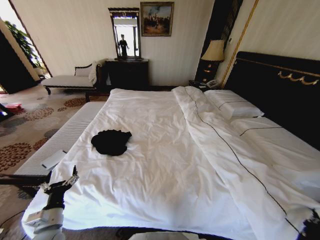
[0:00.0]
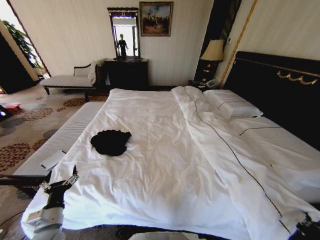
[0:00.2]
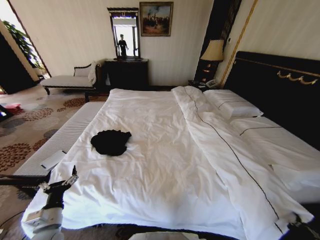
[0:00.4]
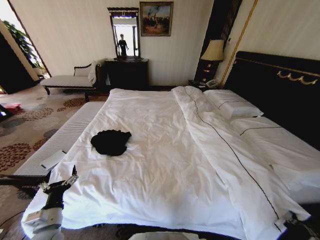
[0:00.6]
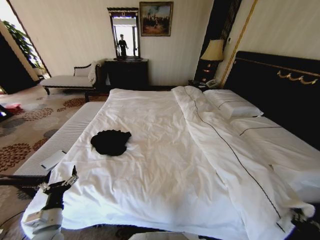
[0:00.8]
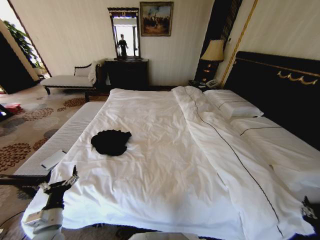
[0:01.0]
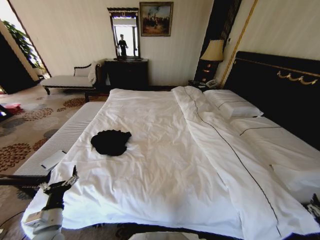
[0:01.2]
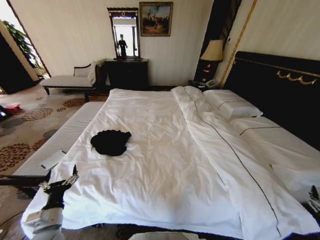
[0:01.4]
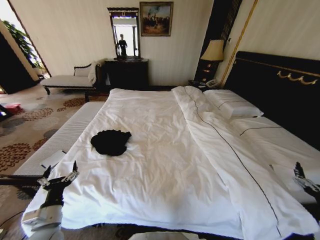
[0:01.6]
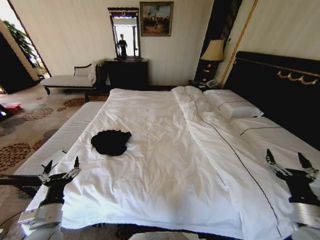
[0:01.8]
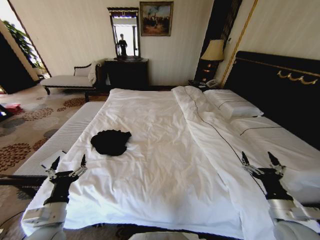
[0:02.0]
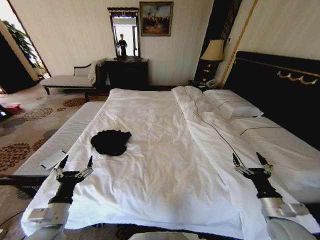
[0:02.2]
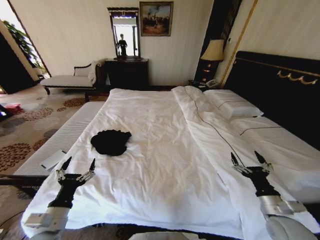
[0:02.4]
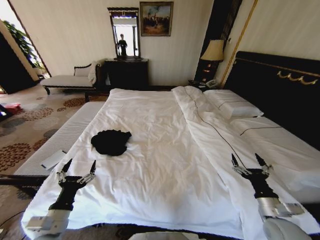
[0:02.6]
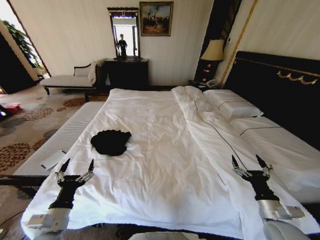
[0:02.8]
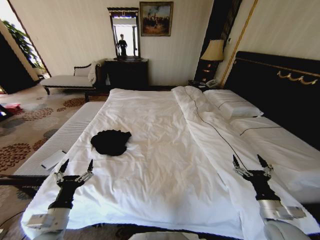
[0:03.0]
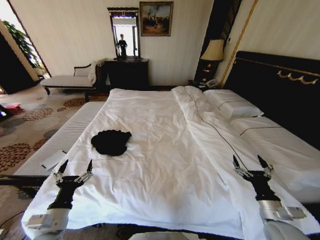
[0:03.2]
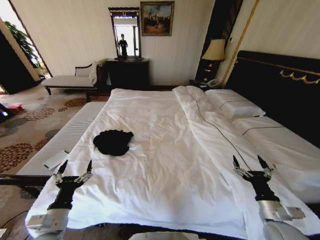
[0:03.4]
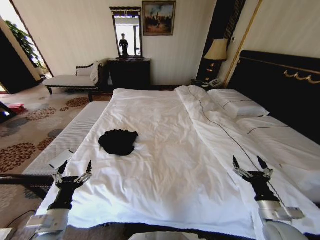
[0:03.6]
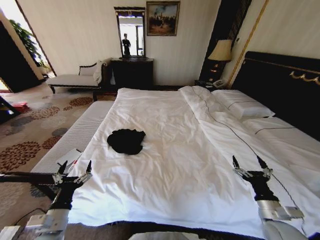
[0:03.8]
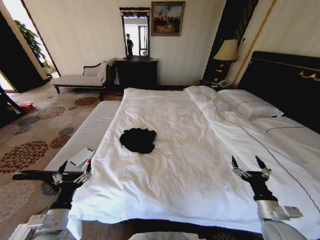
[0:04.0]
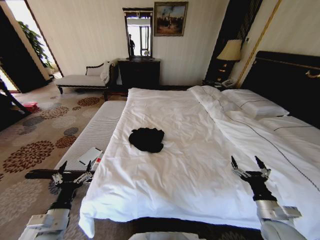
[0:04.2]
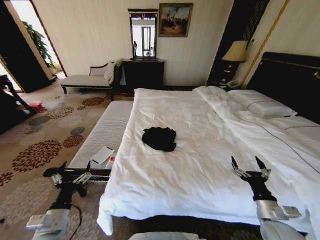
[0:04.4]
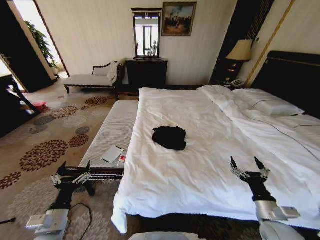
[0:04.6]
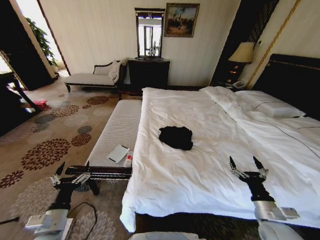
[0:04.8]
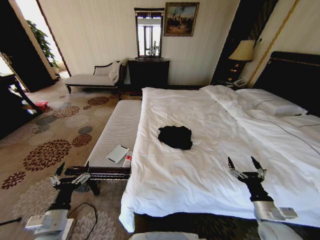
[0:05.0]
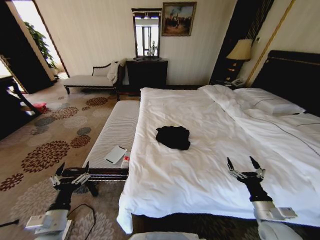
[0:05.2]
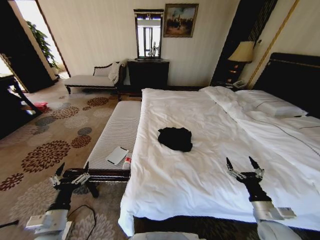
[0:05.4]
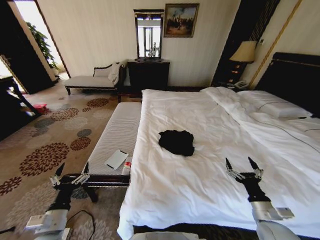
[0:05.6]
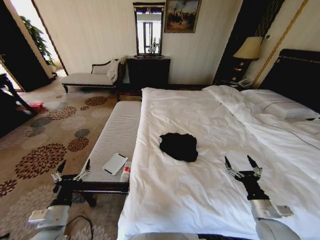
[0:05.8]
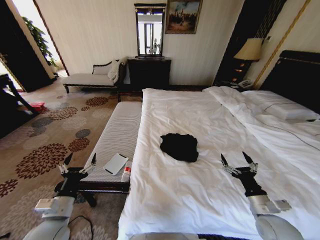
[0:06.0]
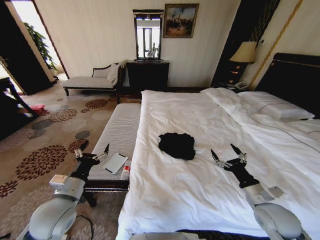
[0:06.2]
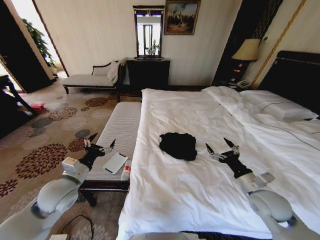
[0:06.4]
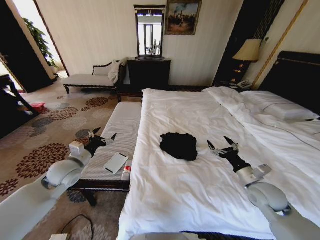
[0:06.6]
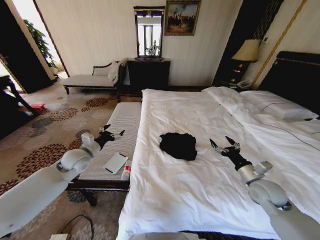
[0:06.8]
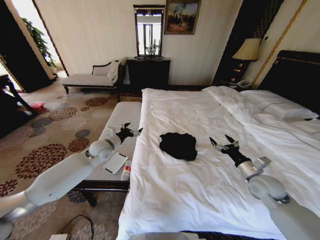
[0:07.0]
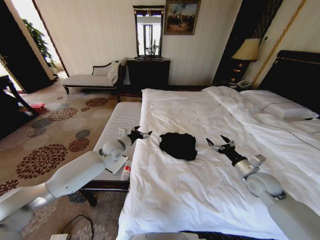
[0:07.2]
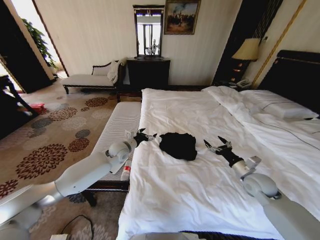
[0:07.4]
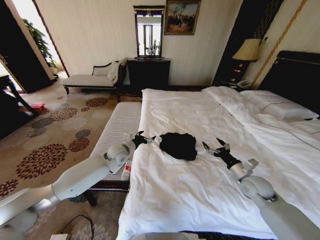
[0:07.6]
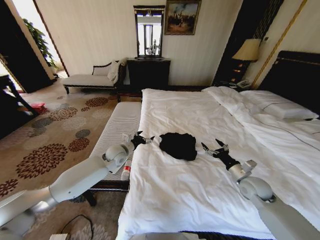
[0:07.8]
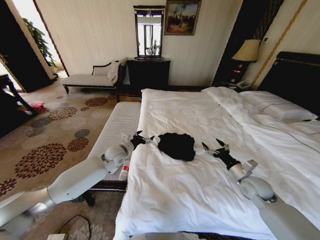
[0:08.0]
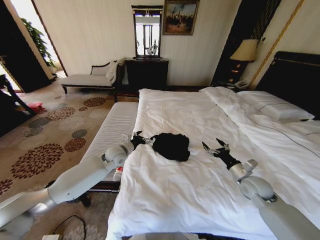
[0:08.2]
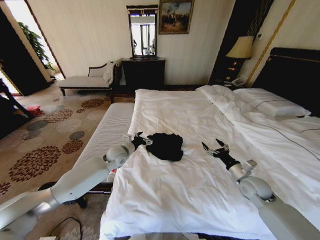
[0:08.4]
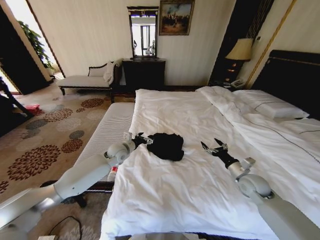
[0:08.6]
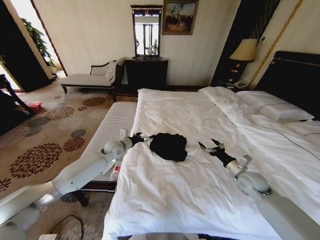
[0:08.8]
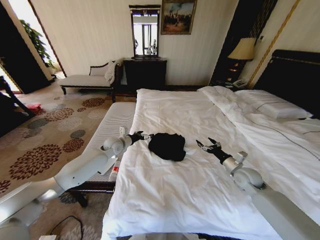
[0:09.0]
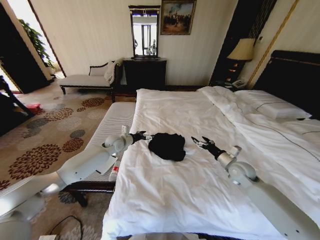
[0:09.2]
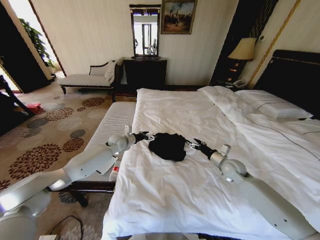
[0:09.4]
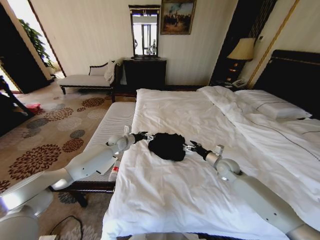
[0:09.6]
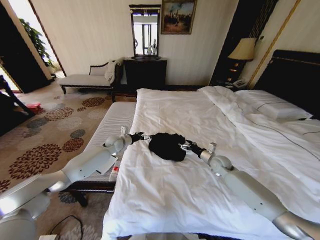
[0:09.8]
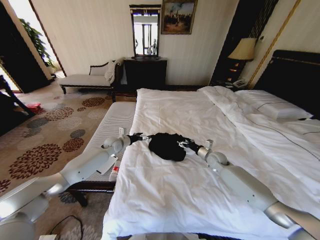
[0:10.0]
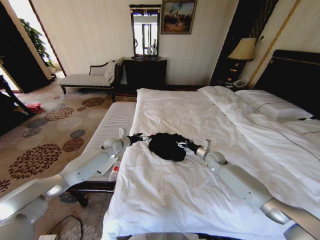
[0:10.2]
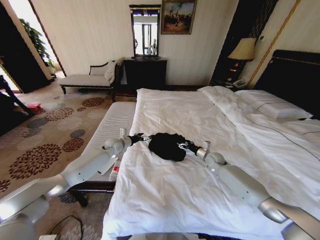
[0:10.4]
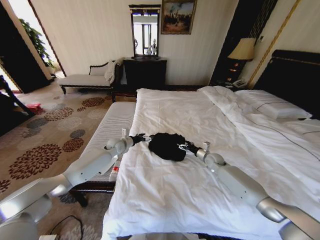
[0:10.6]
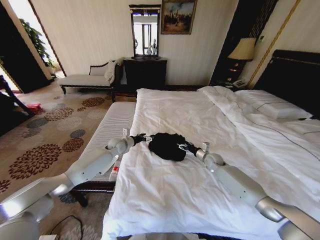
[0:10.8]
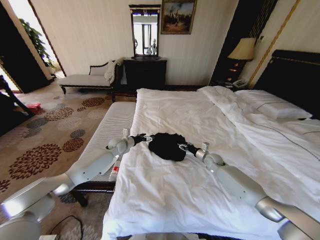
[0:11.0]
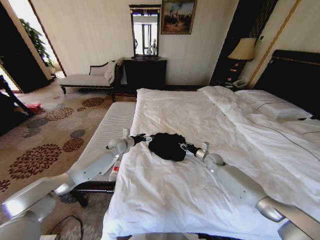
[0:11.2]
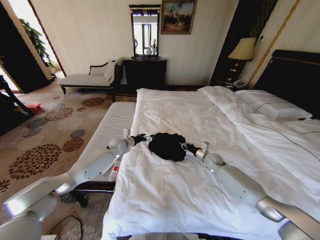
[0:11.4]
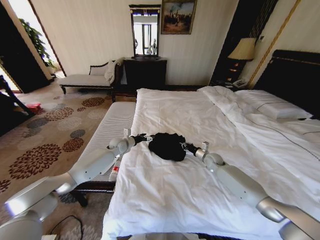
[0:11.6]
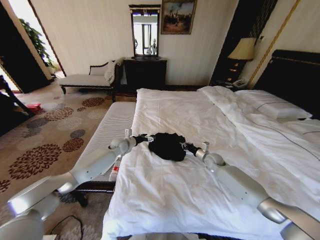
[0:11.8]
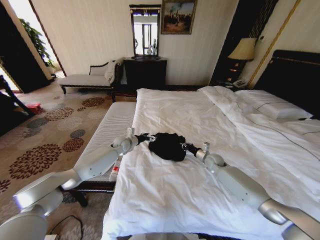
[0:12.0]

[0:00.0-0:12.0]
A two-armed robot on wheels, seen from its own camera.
Task of the whole recording: Fold the clothes on the bed.
0:00.0 to 0:01.6: The right gripper is displaced upward by approximately 5 cm, and opens up.
0:01.6 to 0:03.0: The right gripper moves to the left and forward, approximately 10 cm.
0:06.0 to 0:07.6: The right gripper heads forward, covering roughly 15 cm; the left gripper moves forward and to the right, about 35 cm.
0:07.6 to 0:09.0: The left gripper moves some 5 cm.
0:09.0 to 0:10.4: The right gripper heads forward, downward and to the left, covering about 15 cm.
0:10.4 to 0:12.0: The right gripper closes up.

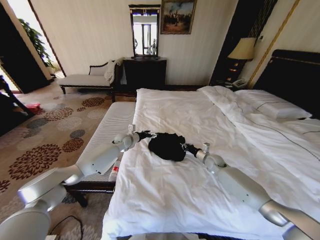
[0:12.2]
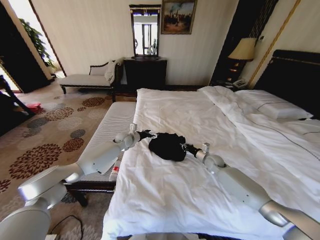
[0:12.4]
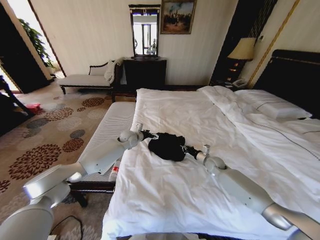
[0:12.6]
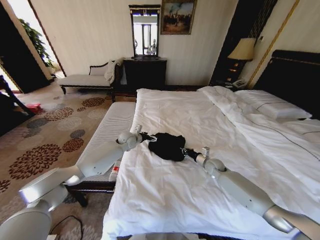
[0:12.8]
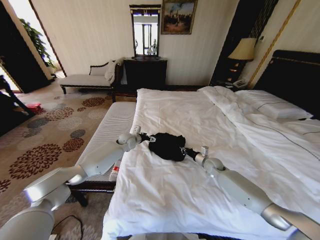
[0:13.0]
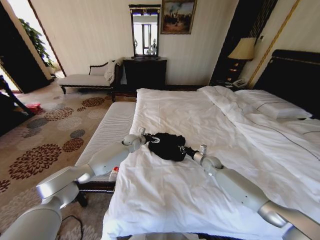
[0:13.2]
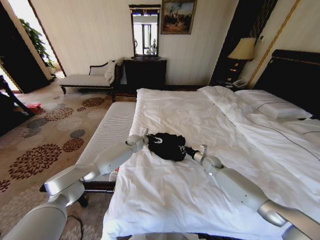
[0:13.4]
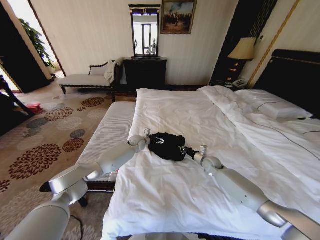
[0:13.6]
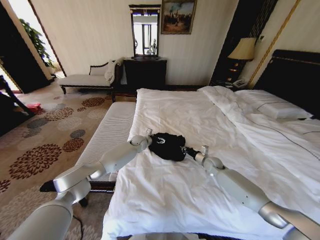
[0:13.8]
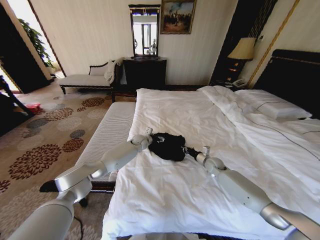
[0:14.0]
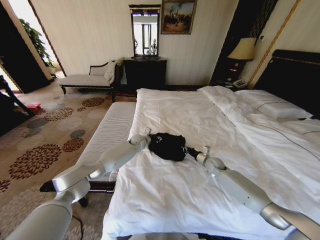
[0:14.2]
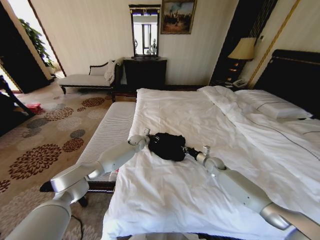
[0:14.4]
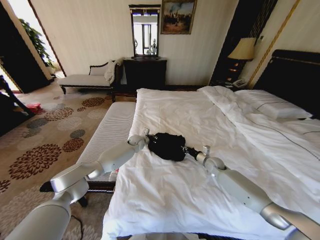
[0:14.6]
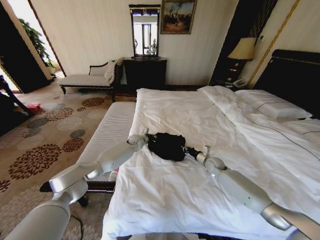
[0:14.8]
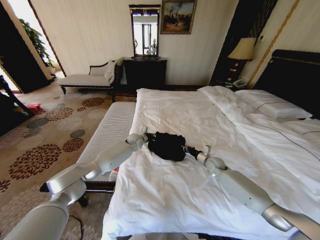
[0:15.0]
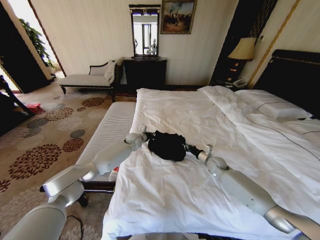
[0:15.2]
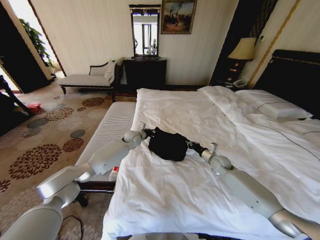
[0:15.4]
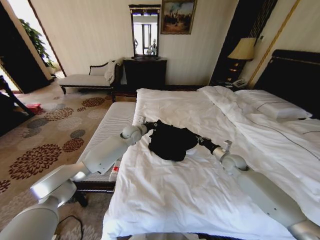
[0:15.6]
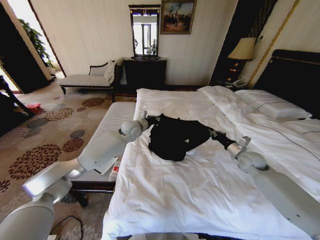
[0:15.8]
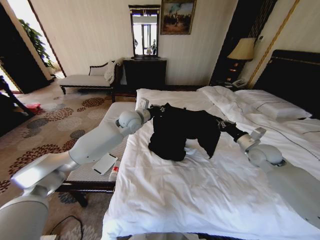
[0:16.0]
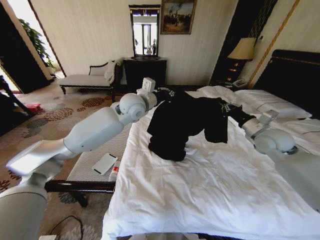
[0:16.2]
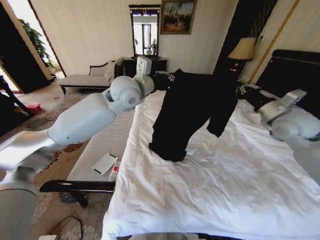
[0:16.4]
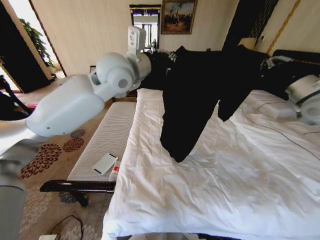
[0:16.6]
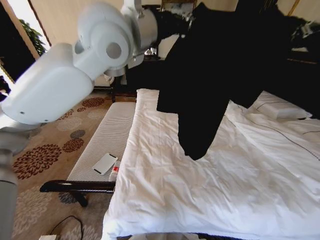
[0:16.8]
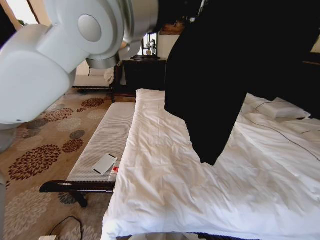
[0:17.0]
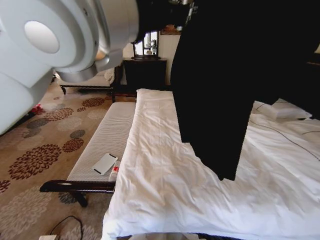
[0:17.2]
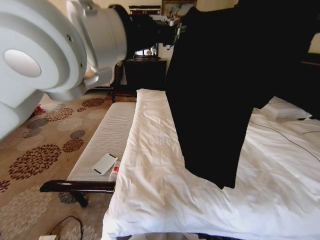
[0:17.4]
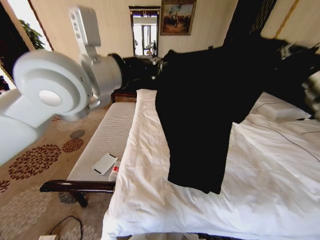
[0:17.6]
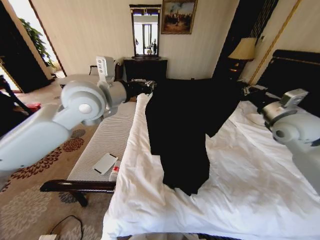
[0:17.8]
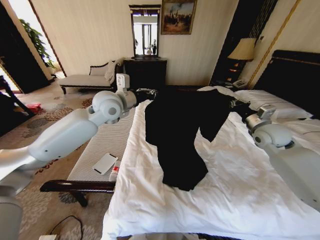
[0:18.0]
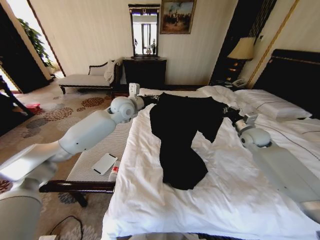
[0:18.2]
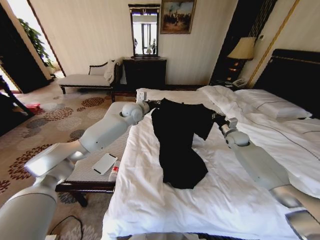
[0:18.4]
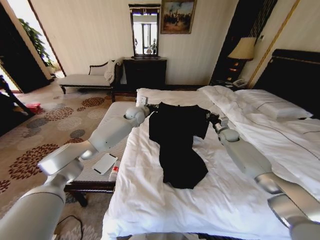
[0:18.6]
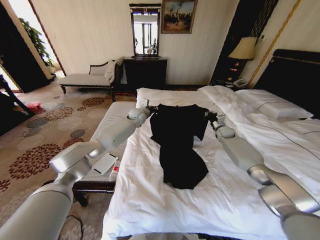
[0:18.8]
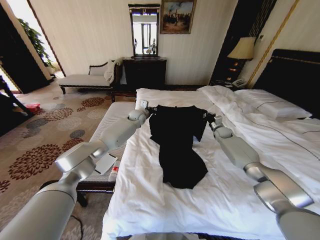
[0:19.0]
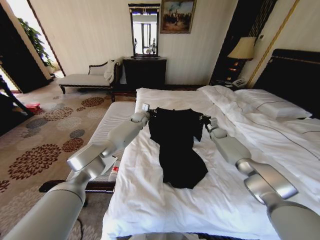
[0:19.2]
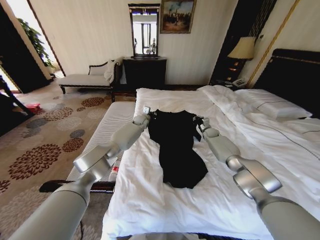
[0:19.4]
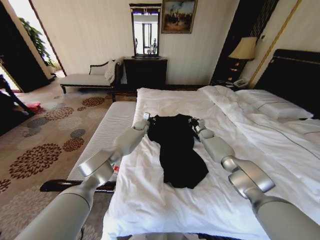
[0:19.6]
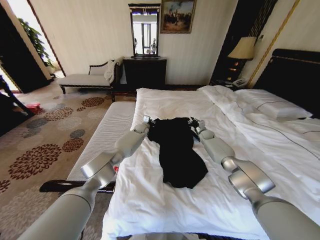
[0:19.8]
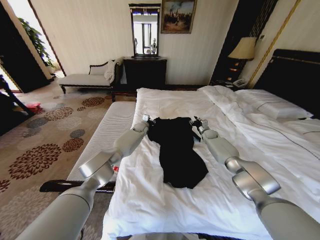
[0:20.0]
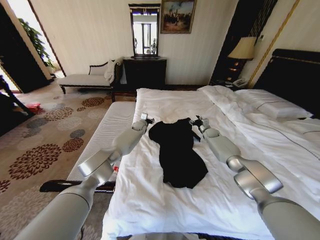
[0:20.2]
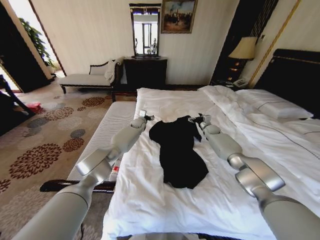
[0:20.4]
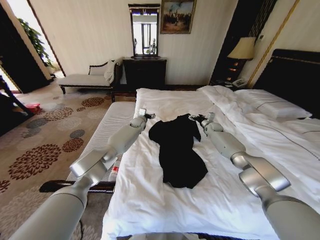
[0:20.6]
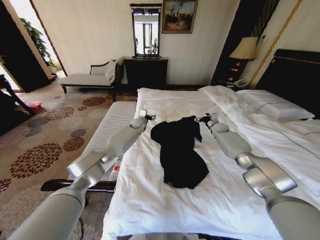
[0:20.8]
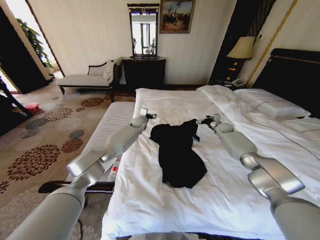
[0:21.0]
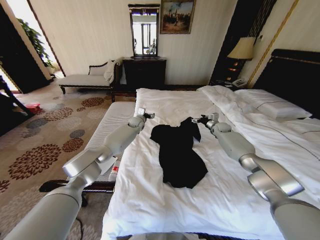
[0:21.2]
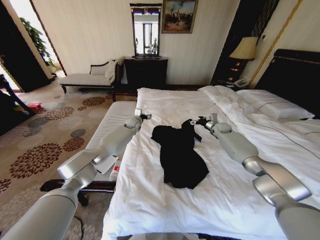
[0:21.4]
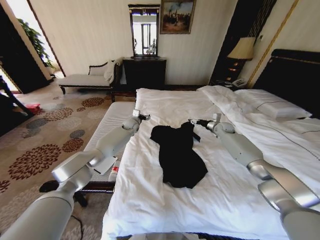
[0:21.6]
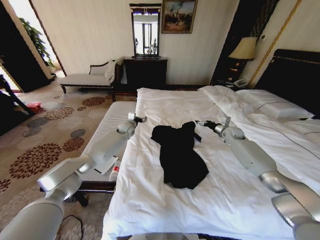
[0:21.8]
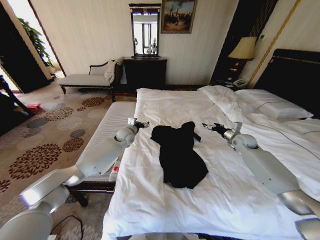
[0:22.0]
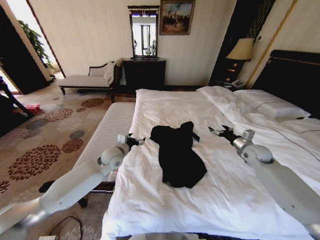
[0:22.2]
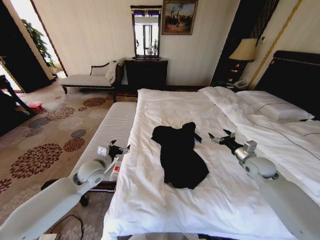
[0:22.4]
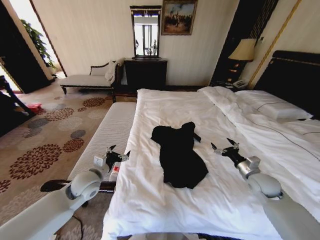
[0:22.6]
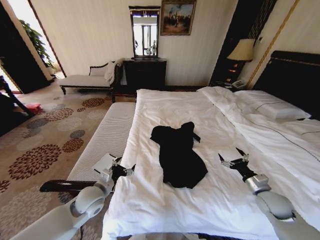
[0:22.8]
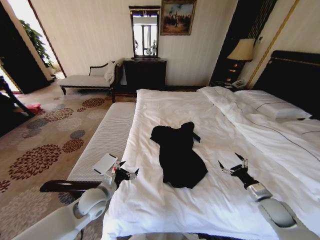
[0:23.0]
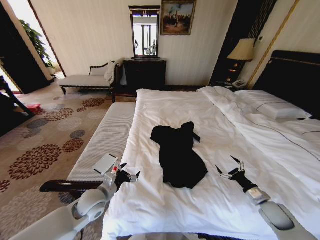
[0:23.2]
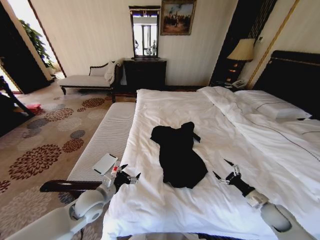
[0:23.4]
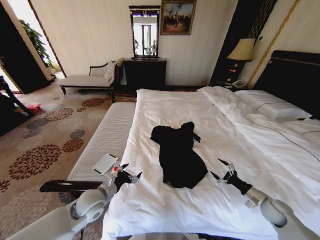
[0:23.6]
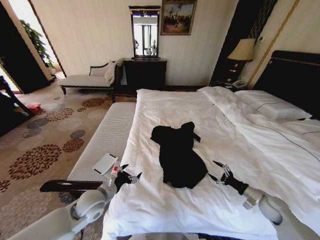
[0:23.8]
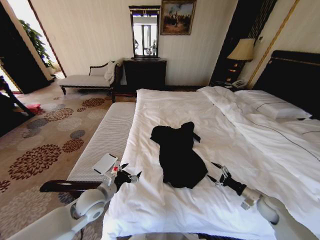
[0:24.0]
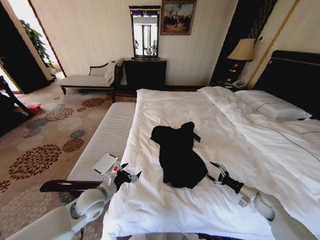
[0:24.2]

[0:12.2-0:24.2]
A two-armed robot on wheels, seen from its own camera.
Task of the whole recording: Fold the clothes on the bed.
0:12.2 to 0:13.8: The left gripper moves to the right, roughly 10 cm.
0:13.8 to 0:15.2: The left gripper closes up.
0:15.2 to 0:16.6: Both grippers travel together upward, roughly 40 cm.
0:16.6 to 0:18.2: The right gripper travels downward by approximately 20 cm. Meanwhile the left gripper moves downward and forward, roughly 15 cm.
0:18.2 to 0:19.8: The left gripper moves downward and forward, about 30 cm. Meanwhile the right gripper heads forward, downward and to the left, covering approximately 25 cm.
0:19.8 to 0:21.2: The left gripper is displaced upward by approximately 5 cm, and opens its fingers; the right gripper heads upward and to the right, covering some 10 cm, and opens.
0:21.2 to 0:22.6: The left gripper shifts some 40 cm backward and to the left; the right gripper goes about 35 cm backward.
0:22.6 to 0:24.2: The right gripper travels downward and to the right by about 15 cm. Meanwhile the left gripper moves approximately 5 cm.
